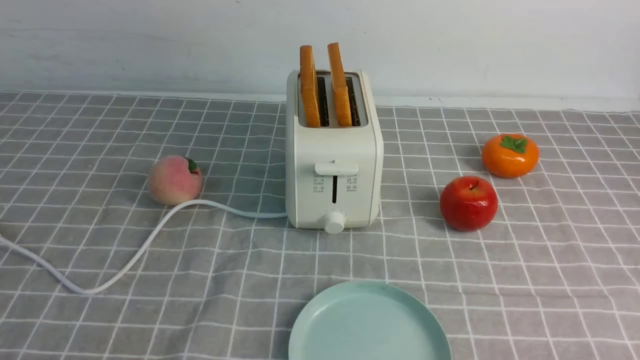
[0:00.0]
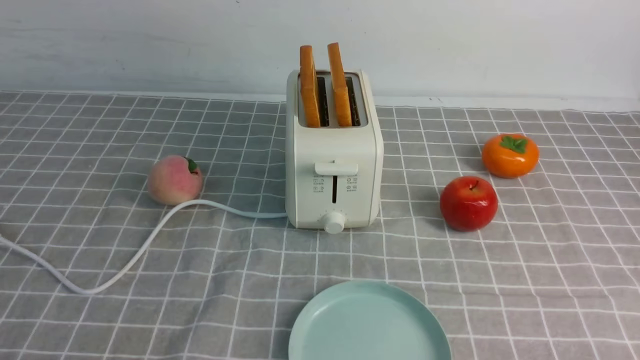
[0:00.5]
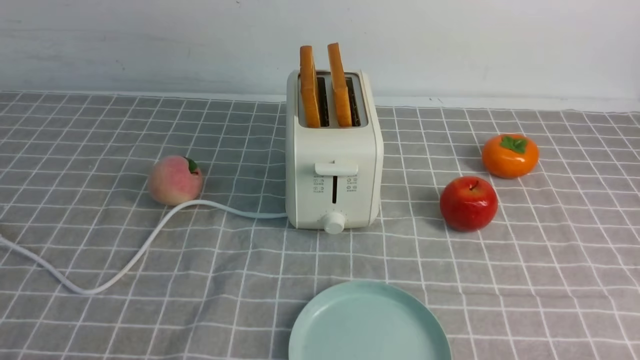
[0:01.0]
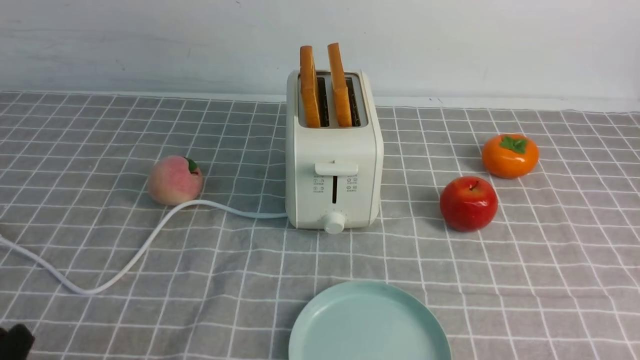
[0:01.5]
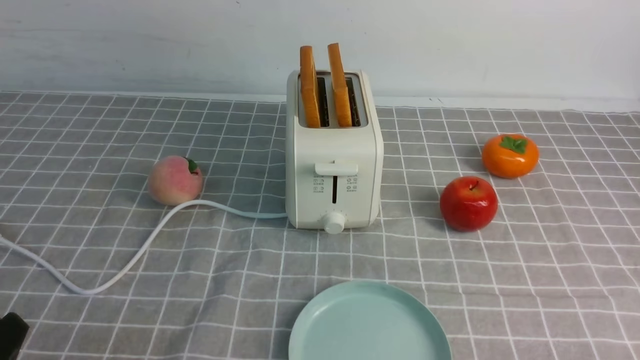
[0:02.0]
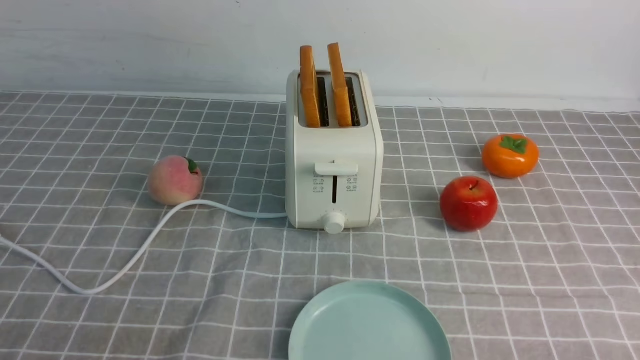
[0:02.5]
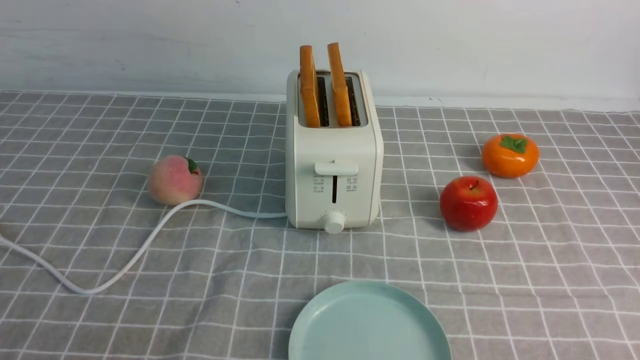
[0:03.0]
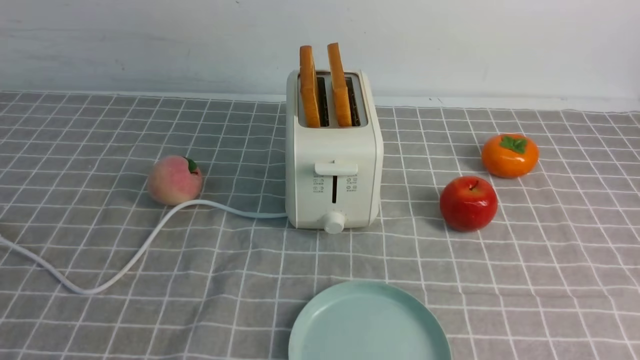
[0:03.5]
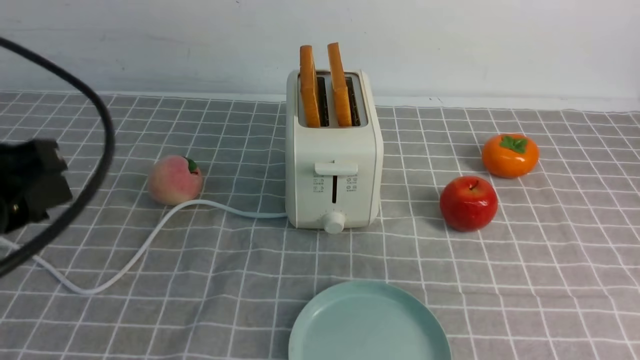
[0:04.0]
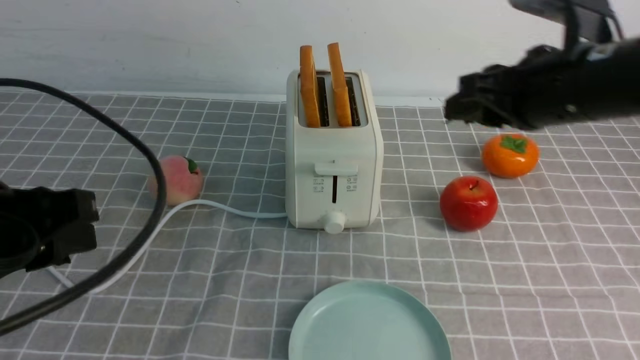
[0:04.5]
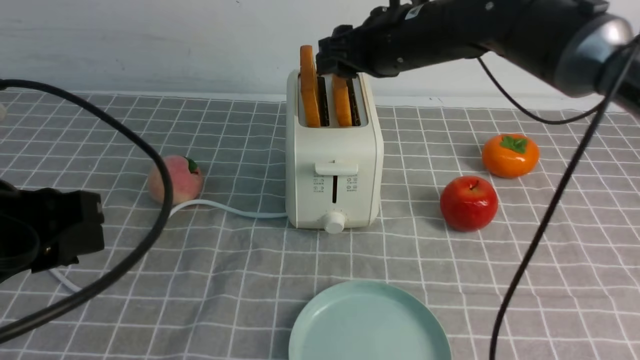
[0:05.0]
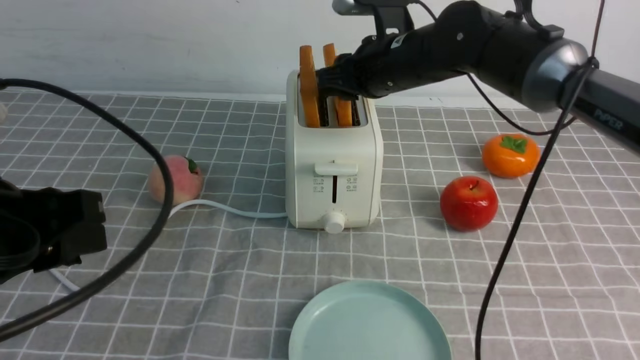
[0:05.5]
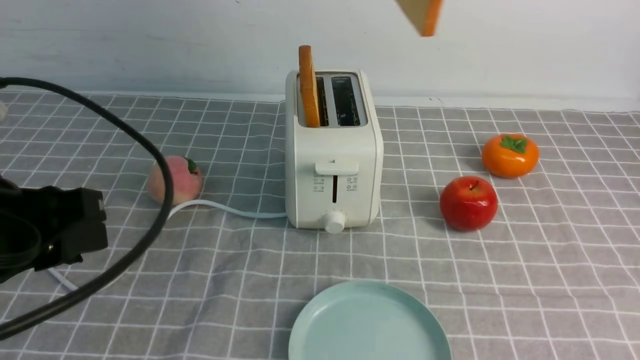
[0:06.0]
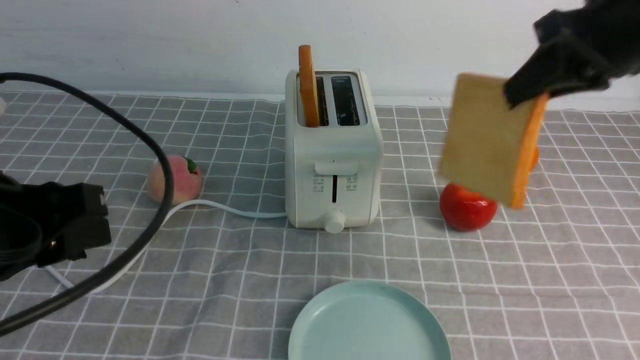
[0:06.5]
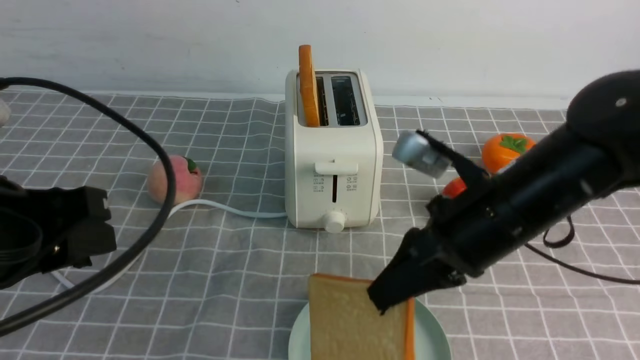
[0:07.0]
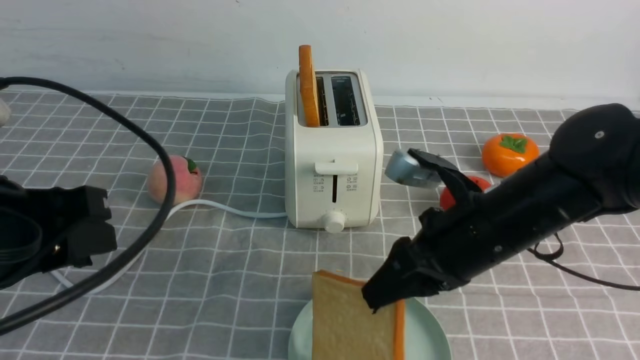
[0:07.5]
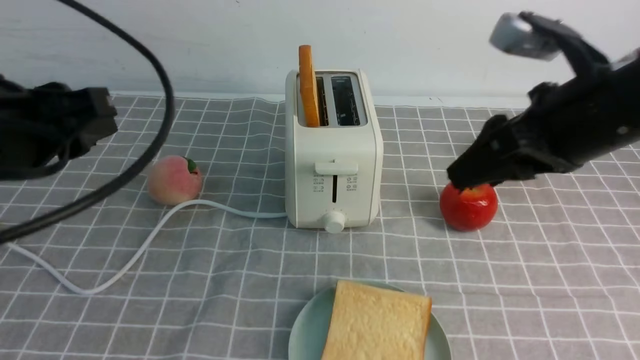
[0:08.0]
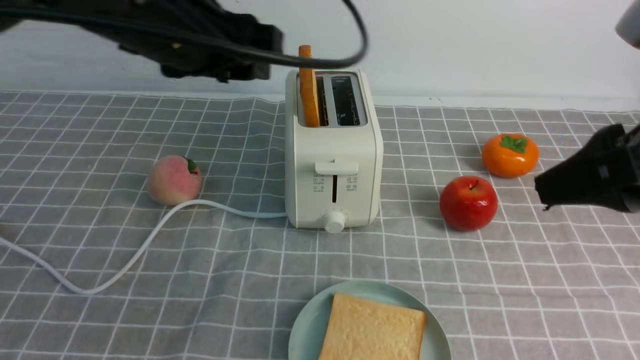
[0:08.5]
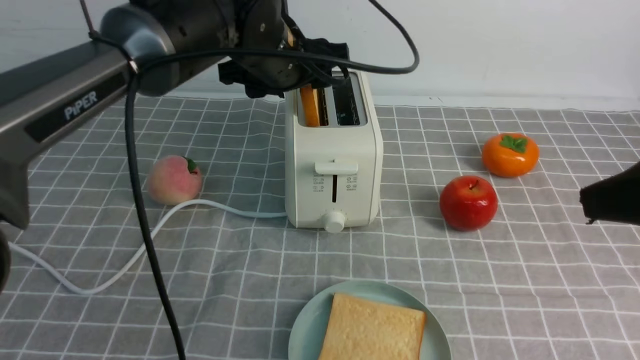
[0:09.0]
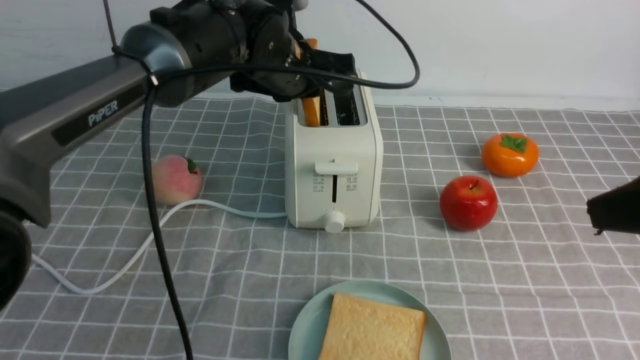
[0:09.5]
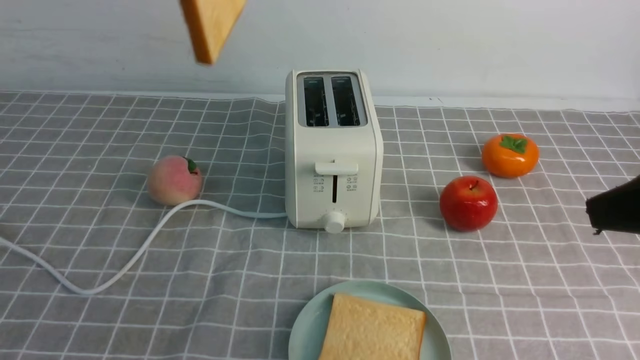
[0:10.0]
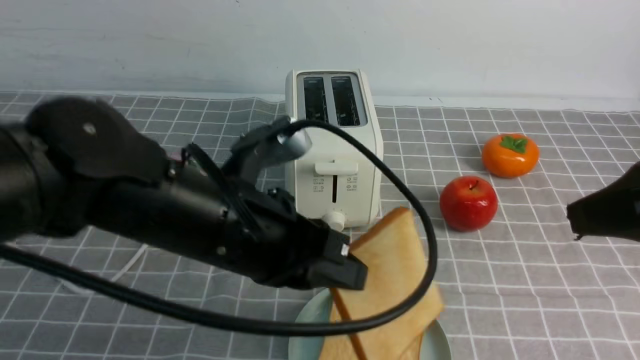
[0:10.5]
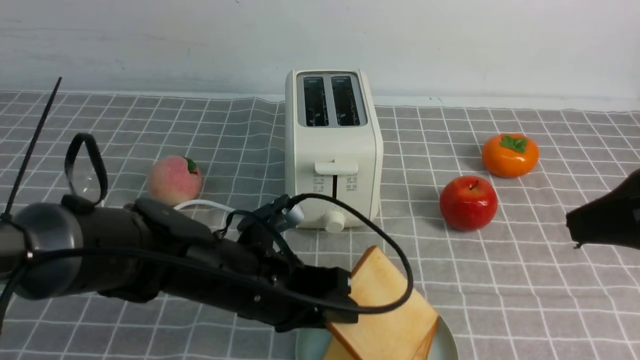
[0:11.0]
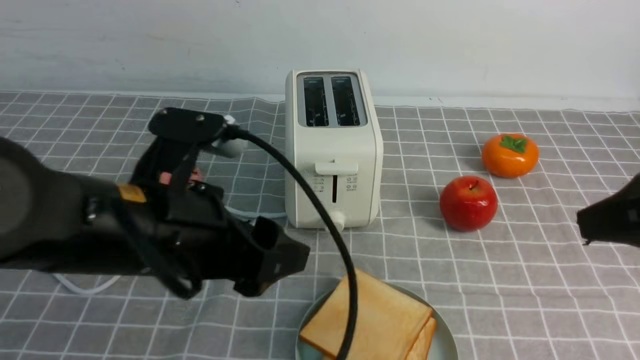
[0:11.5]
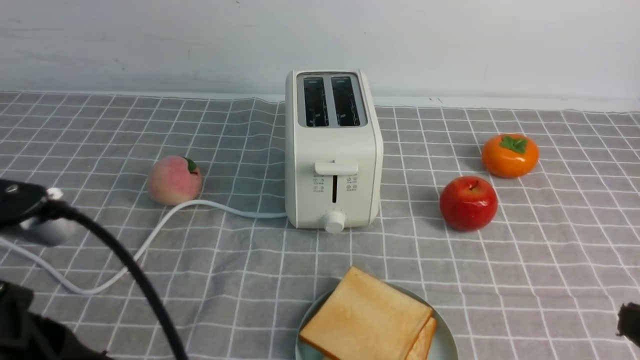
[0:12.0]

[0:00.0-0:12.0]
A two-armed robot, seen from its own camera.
Task of the whole recording: take toasted bread from bread machine on grey coffee table place on plate.
Step, 0:00.0 to 0:05.5: use the right arm to take out a slice of bread.
Step, 0:06.5 to 0:07.5: use the right arm to put a slice of bread into the plate.
Step, 0:08.0 to 0:09.5: use the left arm to take out a slice of bread.
Step, 0:10.0 to 0:11.0: use the left arm to put a slice of bread into the empty plate.
0:02.0 to 0:04.0: The right gripper is displaced upward and forward by approximately 30 cm; the left gripper travels upward and forward by some 20 cm.
0:04.0 to 0:06.0: The right gripper goes roughly 20 cm forward and to the left.
0:06.0 to 0:08.0: The left gripper moves forward, some 5 cm, while the right gripper goes approximately 15 cm backward and downward, and opens.
0:08.0 to 0:10.0: The left gripper heads upward and to the right, covering some 15 cm, moves roughly 20 cm forward and comes back, and opens, then closes again; the right gripper is displaced backward and to the right by roughly 10 cm.
0:10.0 to 0:12.0: The left gripper travels backward and downward by roughly 20 cm, and opens, then closes once more; the right gripper shifts approximately 15 cm downward and backward, and closes up.

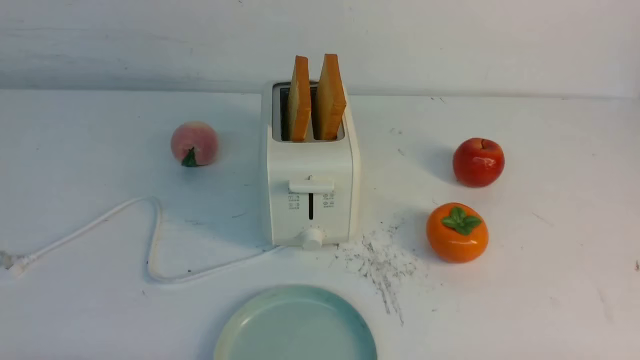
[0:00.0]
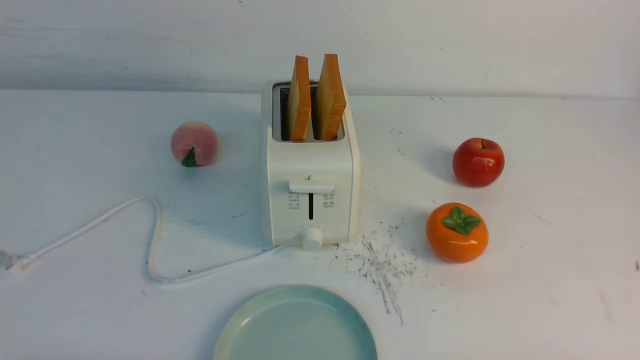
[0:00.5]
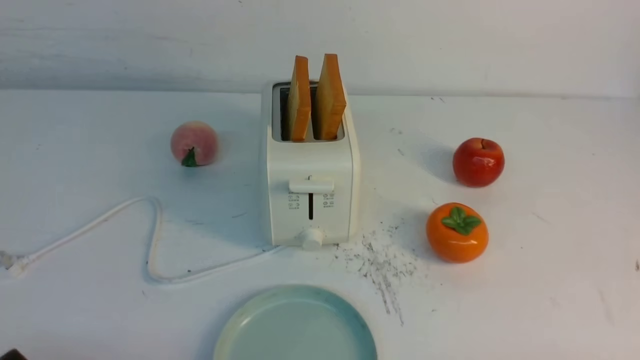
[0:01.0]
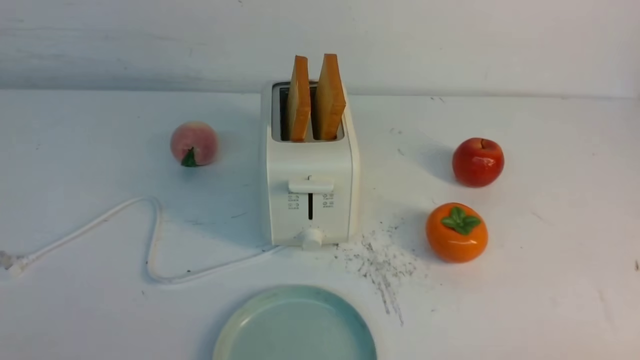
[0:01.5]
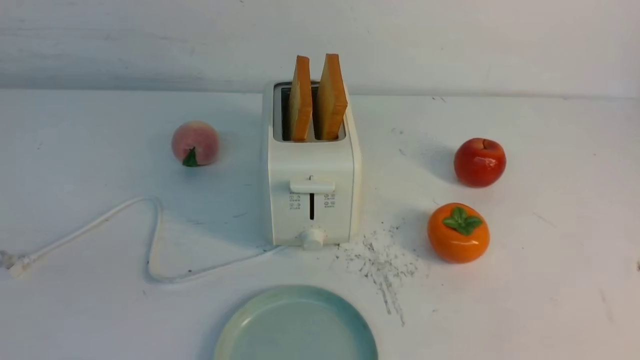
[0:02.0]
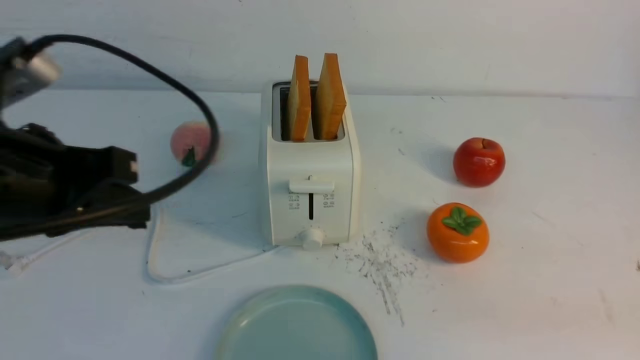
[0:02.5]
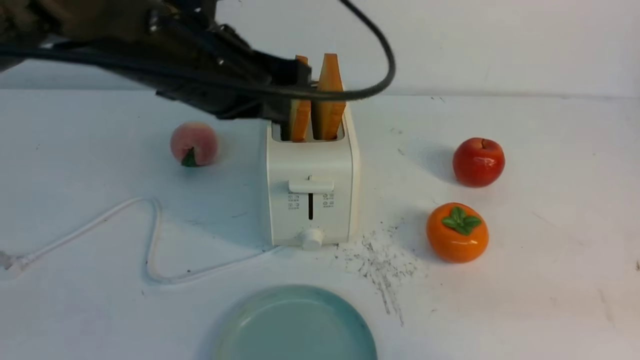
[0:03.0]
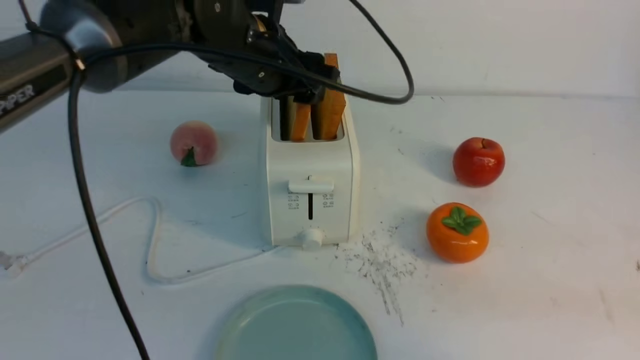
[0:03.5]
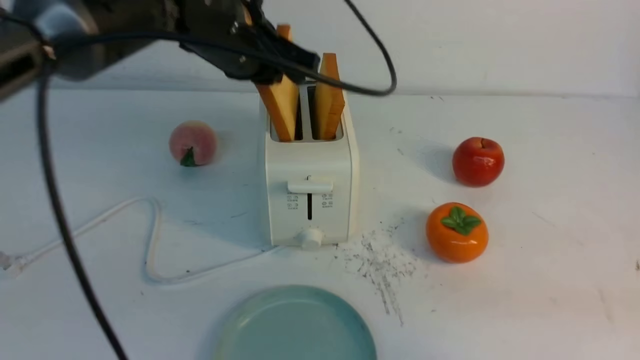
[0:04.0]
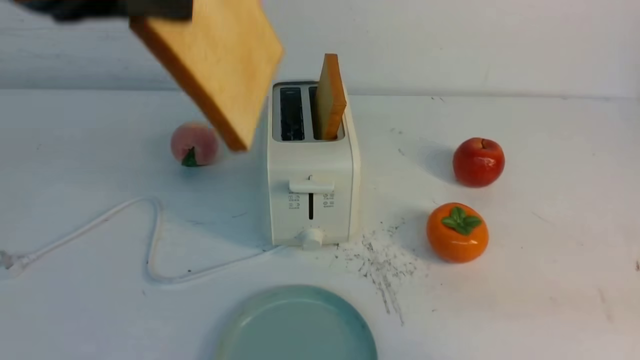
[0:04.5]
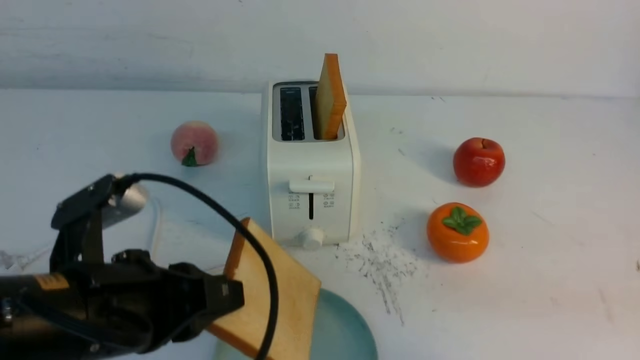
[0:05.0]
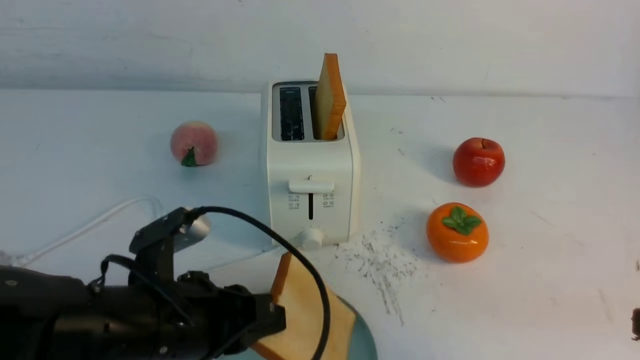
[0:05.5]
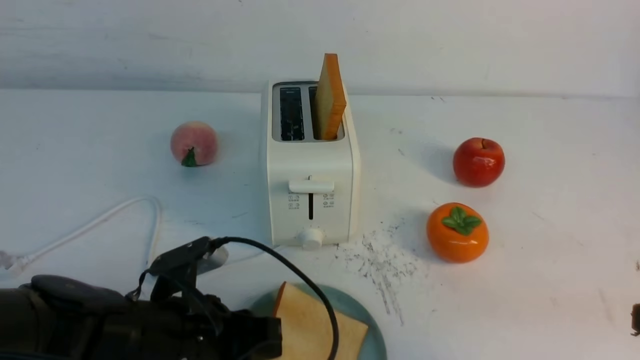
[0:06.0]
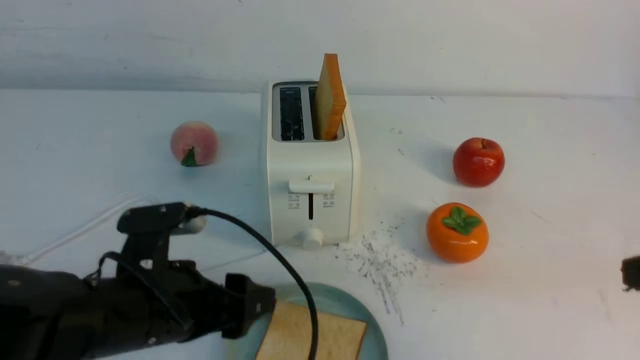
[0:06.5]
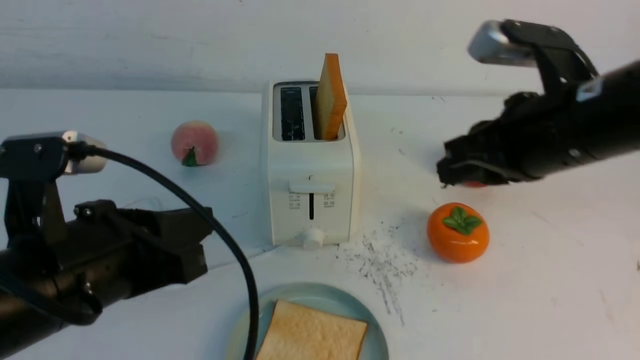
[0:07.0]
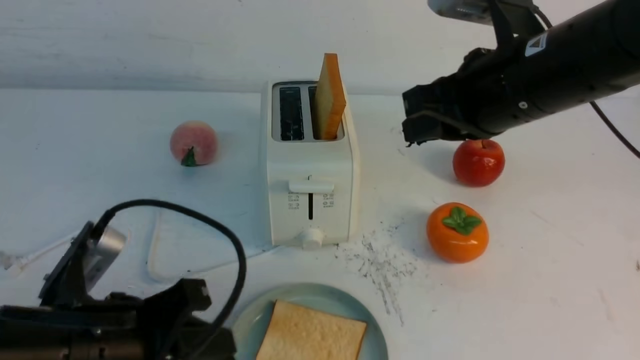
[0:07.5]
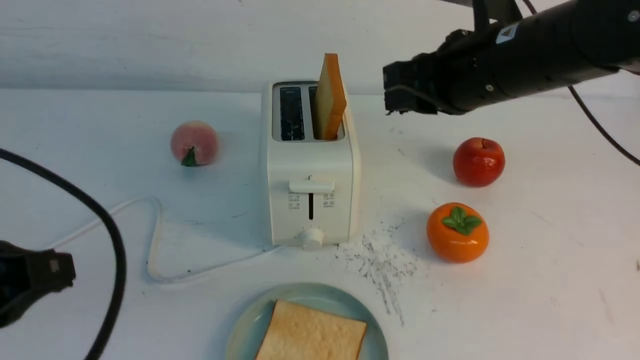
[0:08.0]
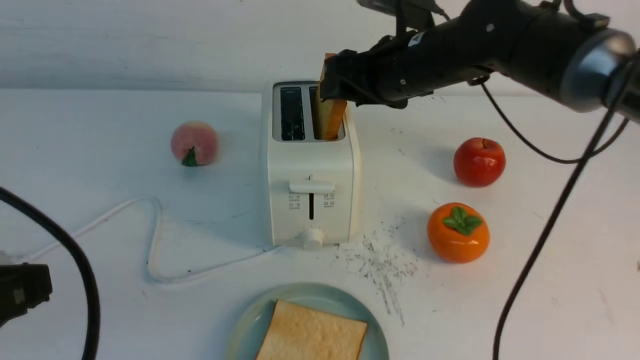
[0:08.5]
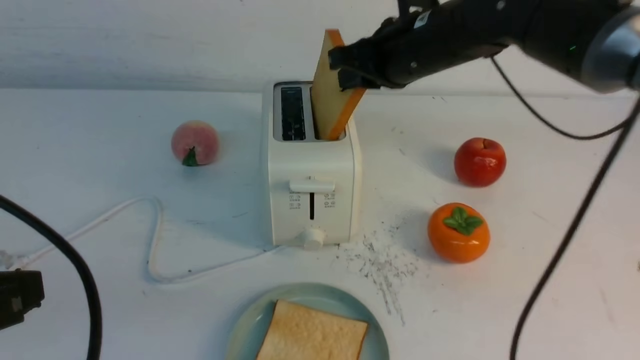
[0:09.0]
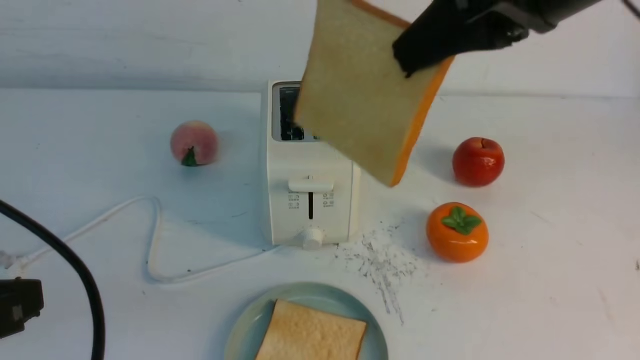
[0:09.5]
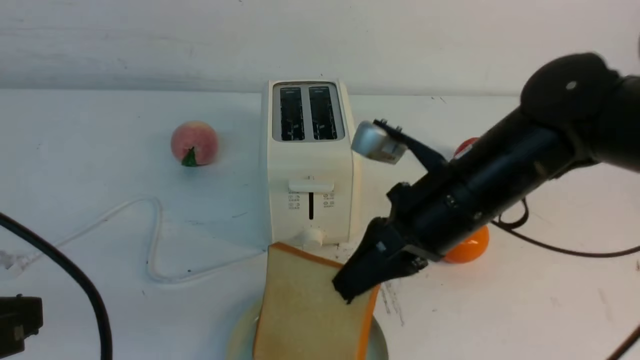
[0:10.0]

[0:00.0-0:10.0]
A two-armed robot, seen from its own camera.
Task of the whole recording: take toasted bread from bread machine on white table place on plate.
Step, 0:00.0 to 0:03.5: use the left arm to take out a slice of bread.
Step, 0:04.0 to 0:06.0: use the left arm to put a slice of bread into the empty plate.
Step, 0:07.0 to 0:09.0: use the right arm to take out a slice of bread.
0:02.0 to 0:04.0: The right gripper is displaced forward by some 10 cm, while the left gripper heads forward and to the right, covering about 35 cm, and opens, then closes again.
0:04.0 to 0:06.0: The left gripper goes about 30 cm downward and backward.
0:06.0 to 0:08.0: The left gripper is displaced upward, to the left and backward by some 20 cm, and closes its fingers, while the right gripper goes some 25 cm forward and to the left.
0:08.0 to 0:10.0: The right gripper moves up and down over roughly 15 cm, changing direction 2 times, and opens, then closes once more.
